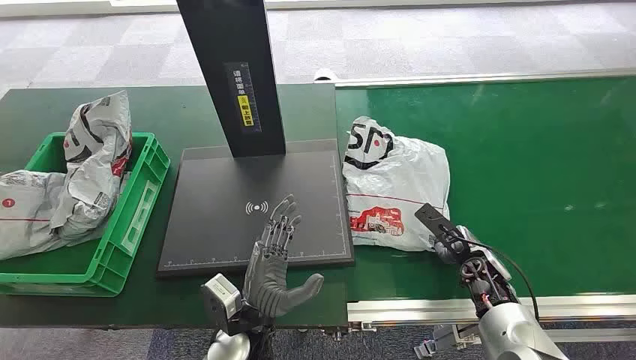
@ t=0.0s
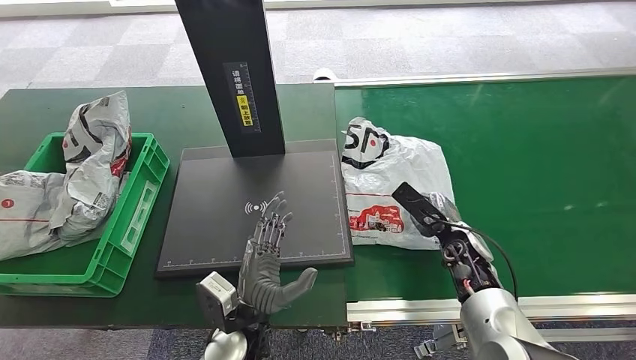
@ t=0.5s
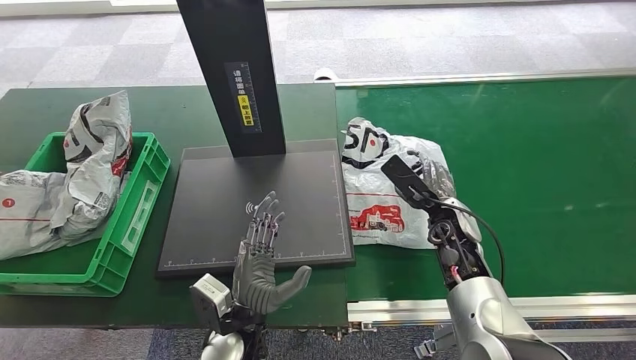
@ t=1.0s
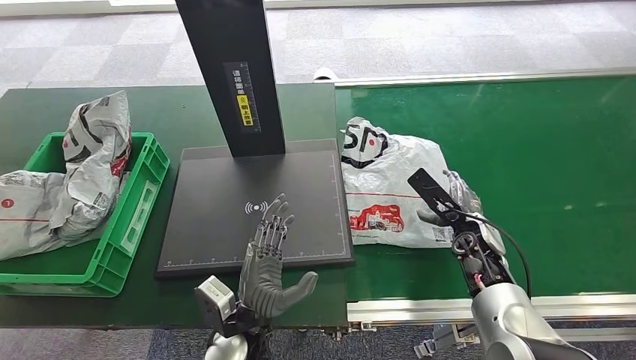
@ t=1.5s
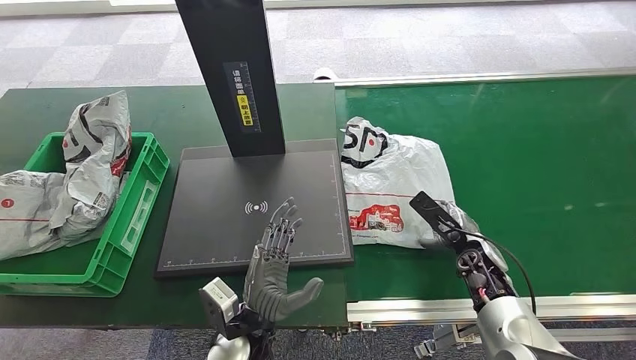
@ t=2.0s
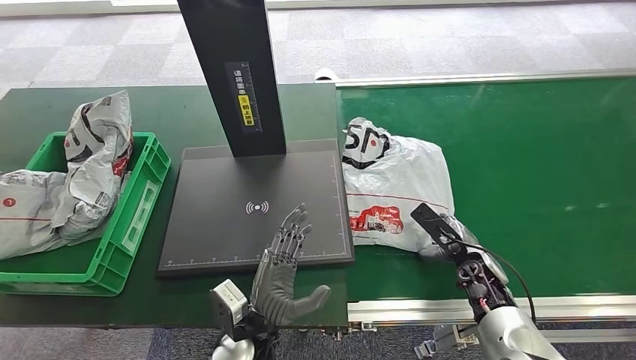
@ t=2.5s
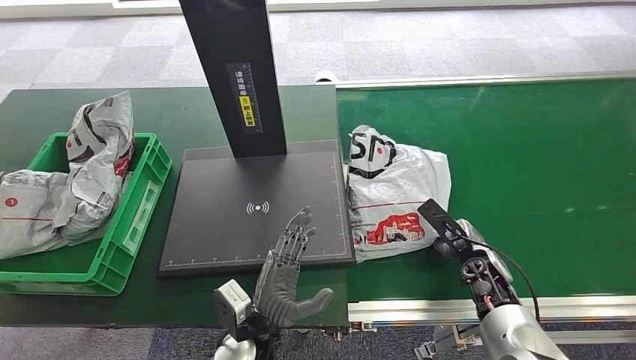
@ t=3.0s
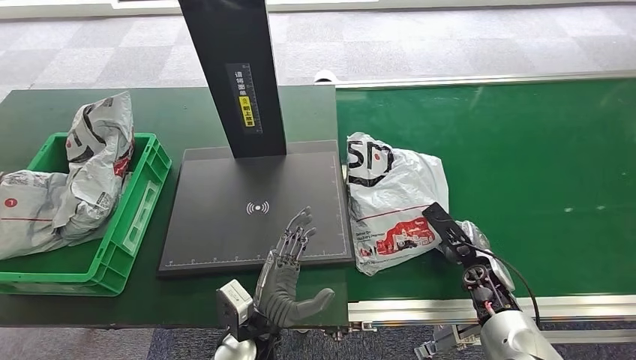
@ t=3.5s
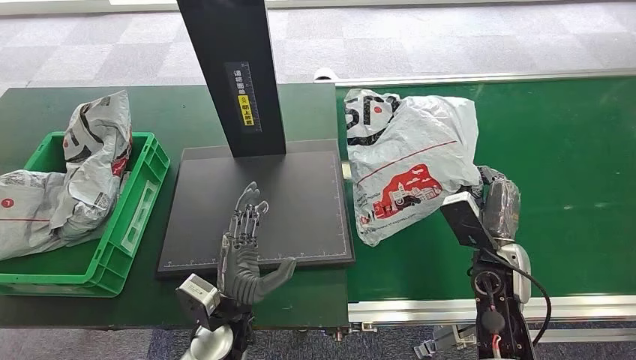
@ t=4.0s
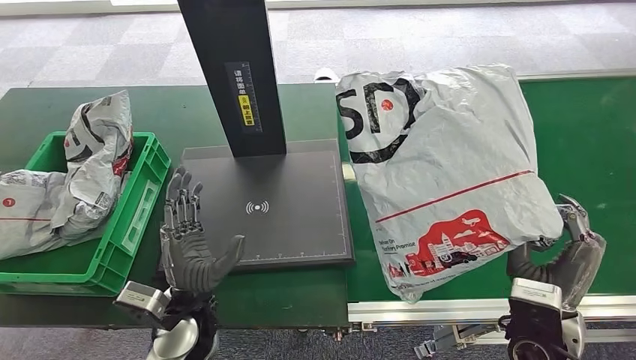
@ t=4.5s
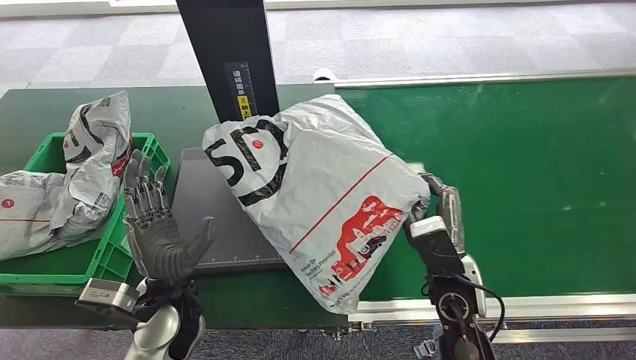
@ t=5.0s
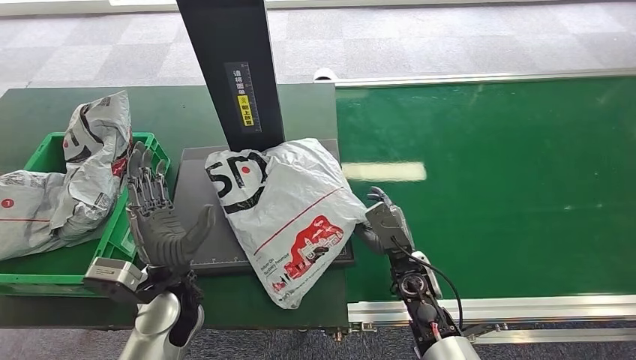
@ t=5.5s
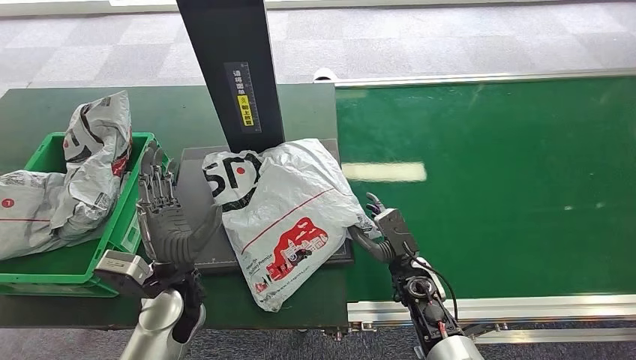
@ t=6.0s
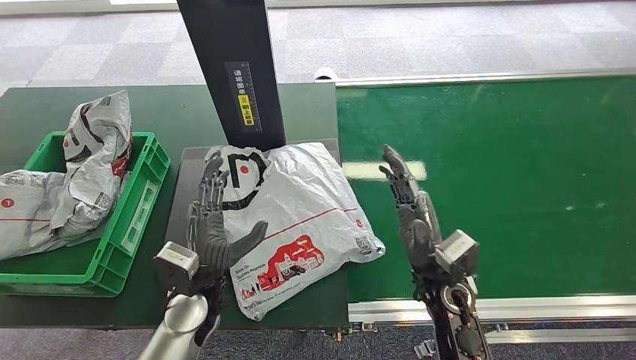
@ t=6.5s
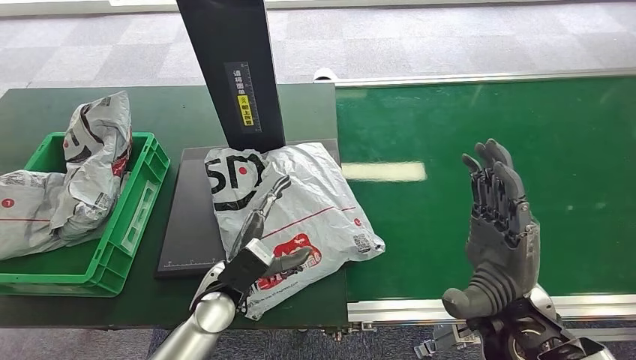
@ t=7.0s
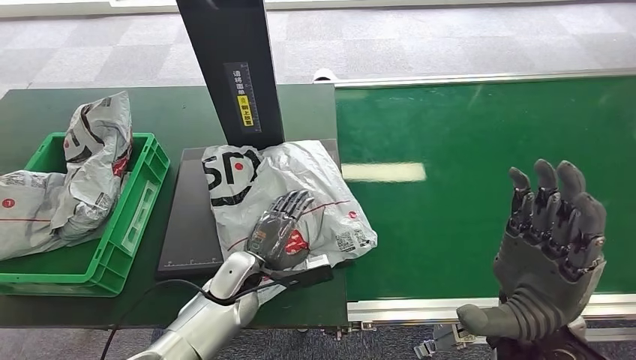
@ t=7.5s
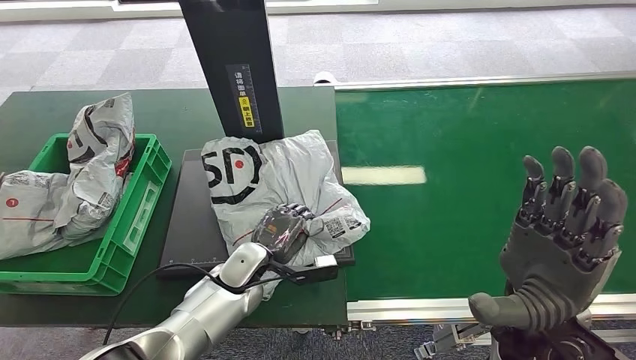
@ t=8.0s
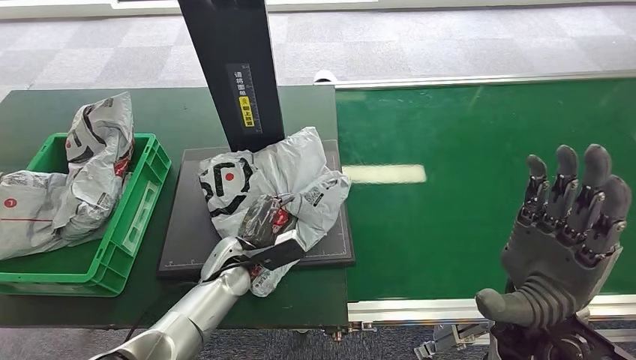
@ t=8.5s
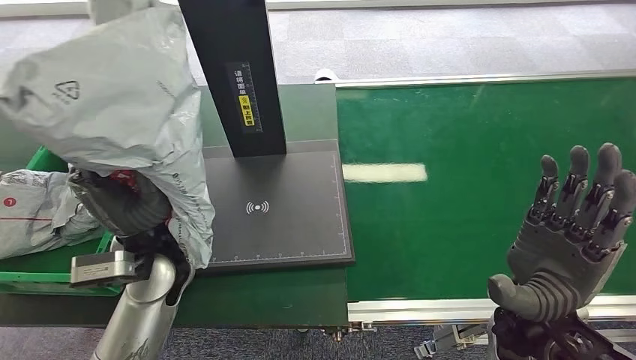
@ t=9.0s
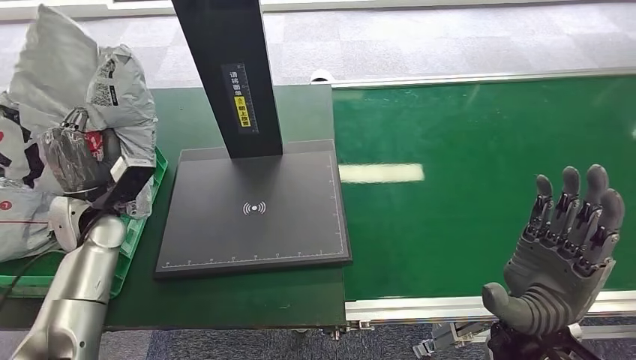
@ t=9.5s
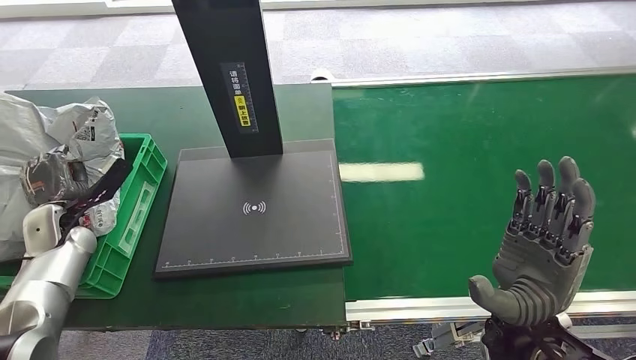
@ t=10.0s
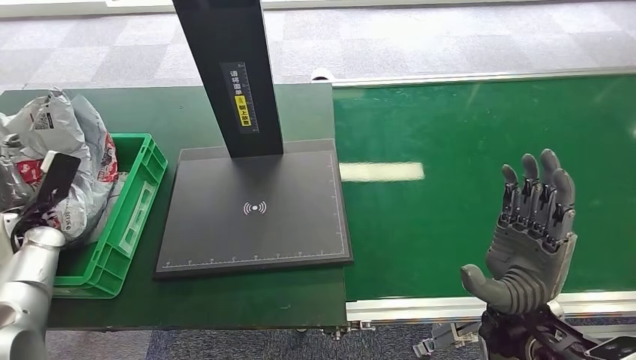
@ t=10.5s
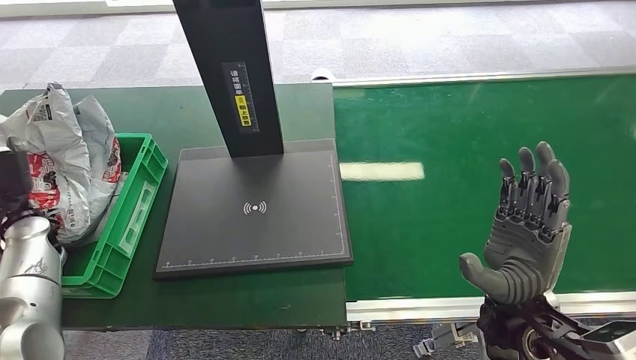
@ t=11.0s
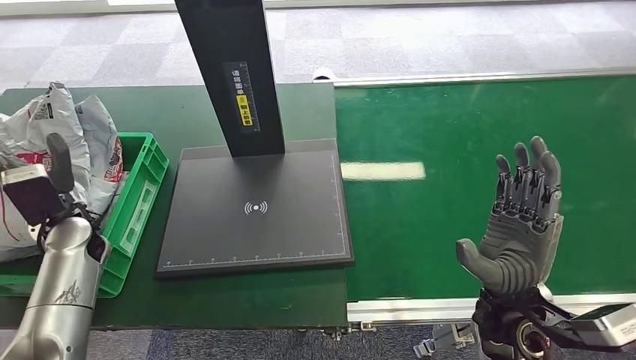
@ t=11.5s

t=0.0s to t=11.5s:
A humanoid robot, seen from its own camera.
Task of the whole recording: Weigh the package on the weighing device and place it in the left basket.
Step, t=0.0s to t=4.0s: Pick up the package from the conveyor belt.
Step, t=4.5s to t=6.5s: Place the package onto the inbound machine.
Step, t=7.0s to t=9.0s: Pick up the package from the inbound machine.
Step, t=9.5s to t=11.5s: Place the package into the parcel locker.
t=2.0s to t=4.0s: The right hand goes approximately 5 cm upward.
t=6.0s to t=7.5s: The right hand moves upward, approximately 20 cm. The left hand goes approximately 10 cm to the right and downward.
